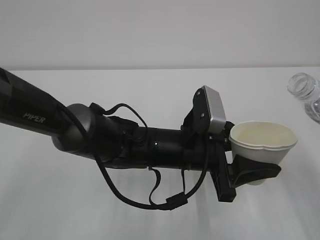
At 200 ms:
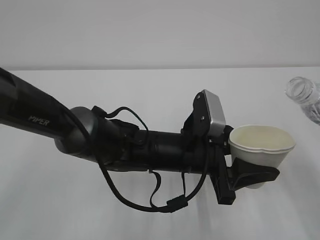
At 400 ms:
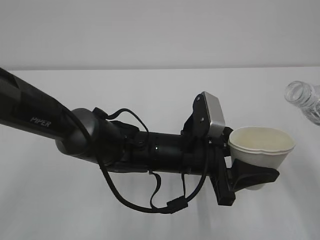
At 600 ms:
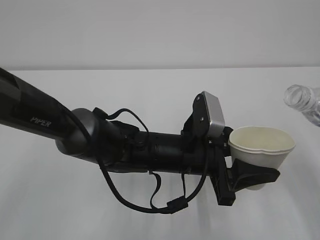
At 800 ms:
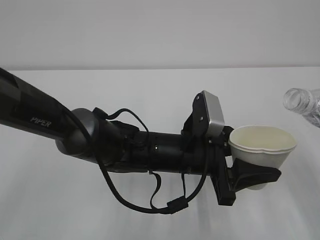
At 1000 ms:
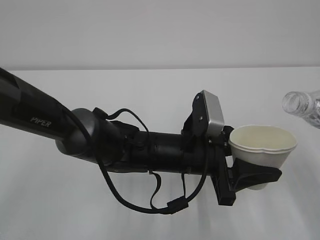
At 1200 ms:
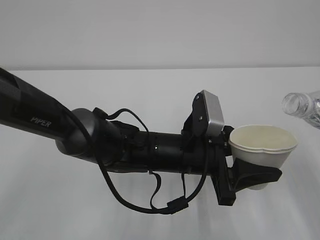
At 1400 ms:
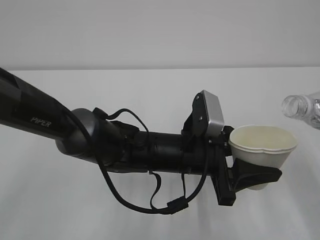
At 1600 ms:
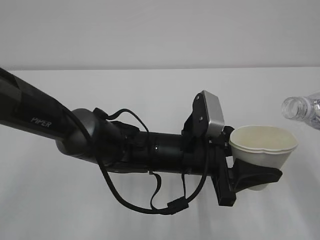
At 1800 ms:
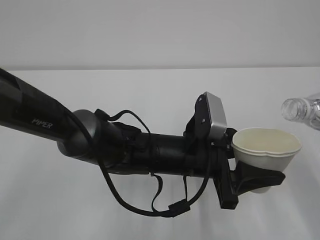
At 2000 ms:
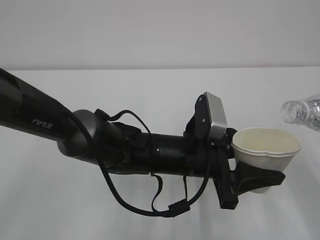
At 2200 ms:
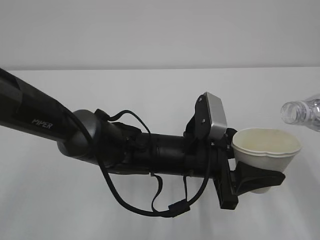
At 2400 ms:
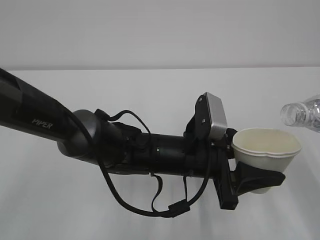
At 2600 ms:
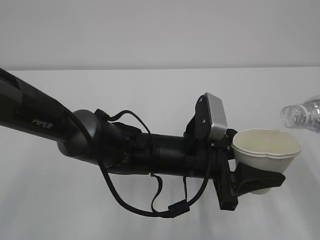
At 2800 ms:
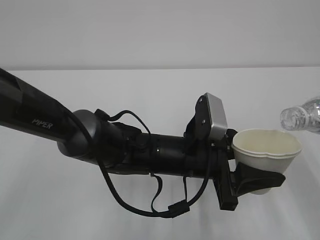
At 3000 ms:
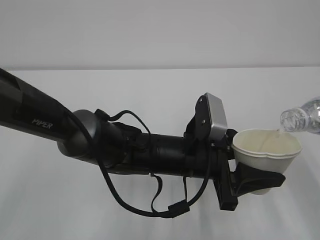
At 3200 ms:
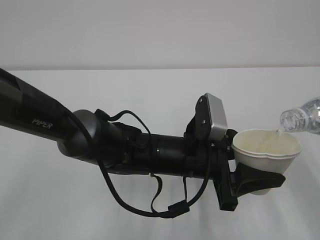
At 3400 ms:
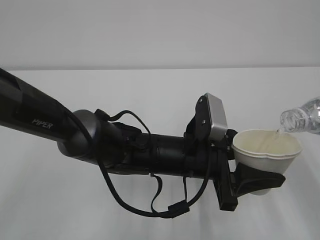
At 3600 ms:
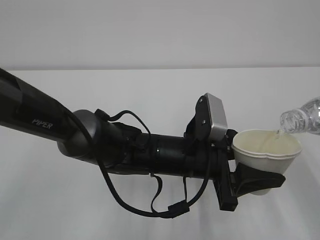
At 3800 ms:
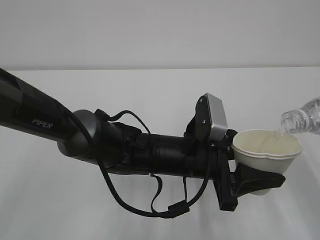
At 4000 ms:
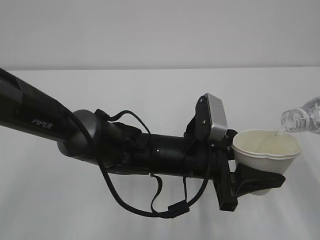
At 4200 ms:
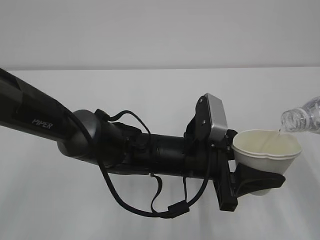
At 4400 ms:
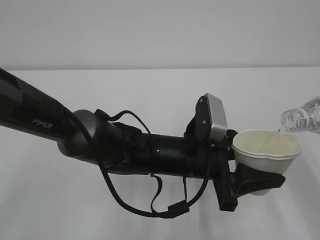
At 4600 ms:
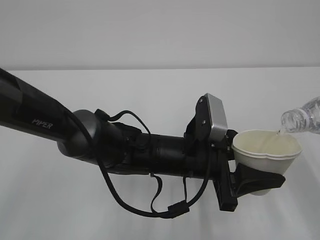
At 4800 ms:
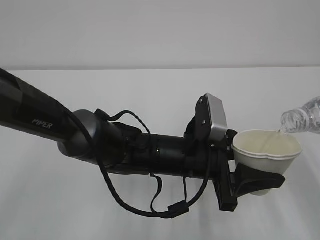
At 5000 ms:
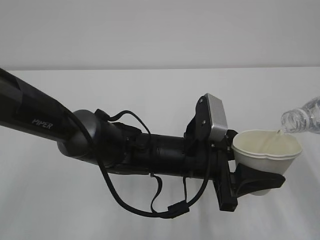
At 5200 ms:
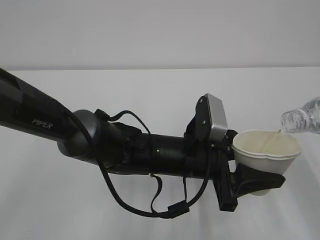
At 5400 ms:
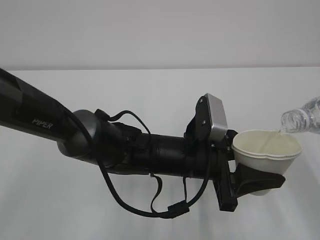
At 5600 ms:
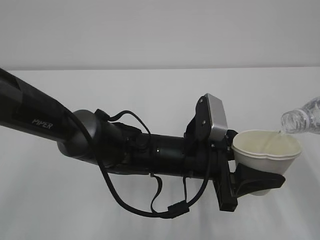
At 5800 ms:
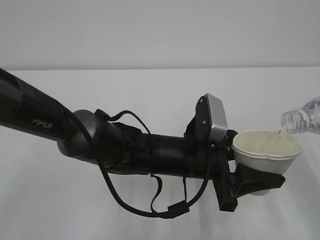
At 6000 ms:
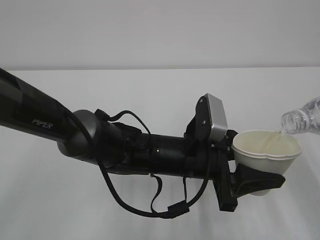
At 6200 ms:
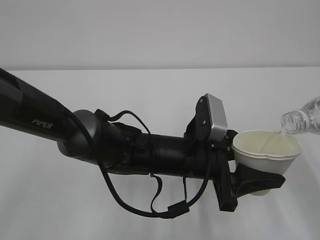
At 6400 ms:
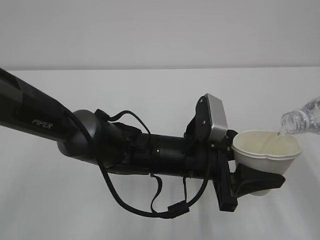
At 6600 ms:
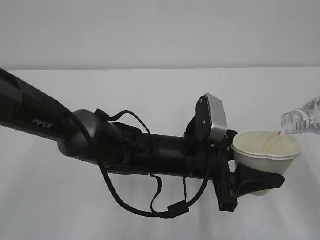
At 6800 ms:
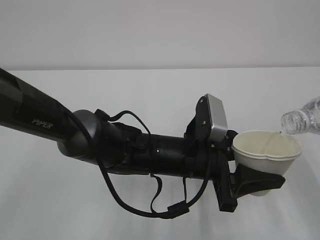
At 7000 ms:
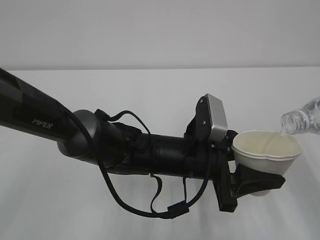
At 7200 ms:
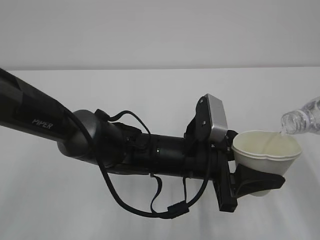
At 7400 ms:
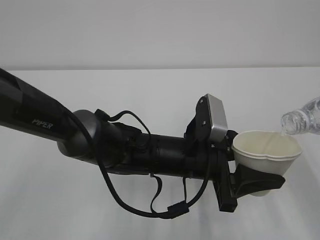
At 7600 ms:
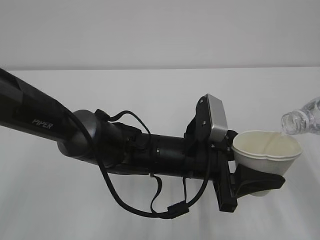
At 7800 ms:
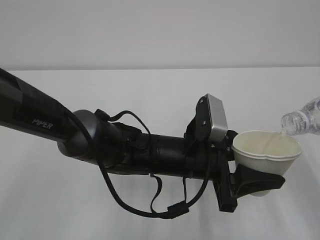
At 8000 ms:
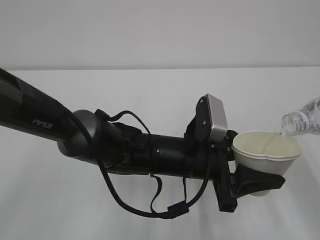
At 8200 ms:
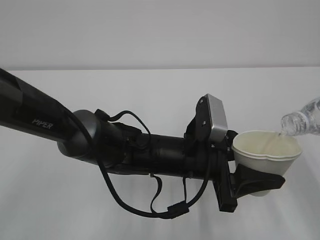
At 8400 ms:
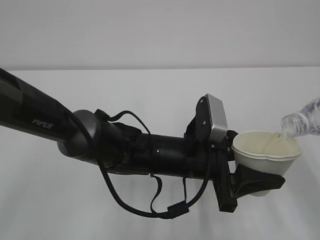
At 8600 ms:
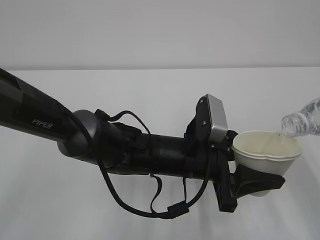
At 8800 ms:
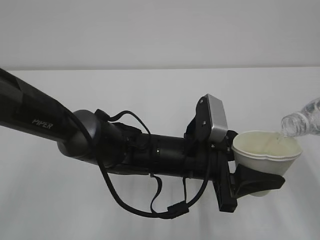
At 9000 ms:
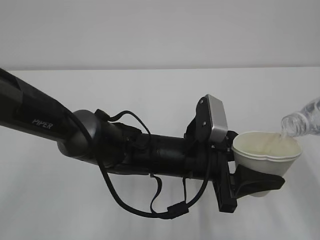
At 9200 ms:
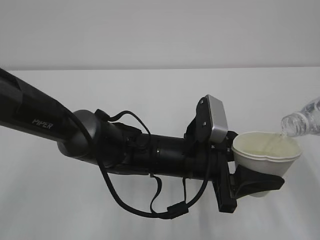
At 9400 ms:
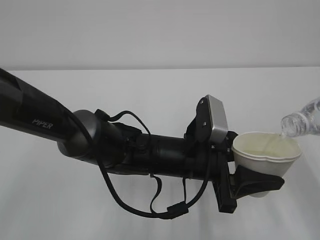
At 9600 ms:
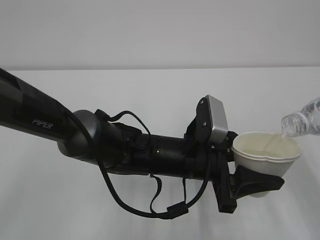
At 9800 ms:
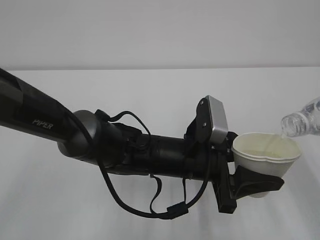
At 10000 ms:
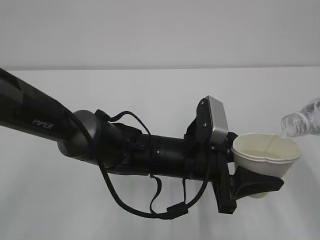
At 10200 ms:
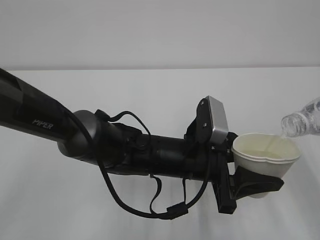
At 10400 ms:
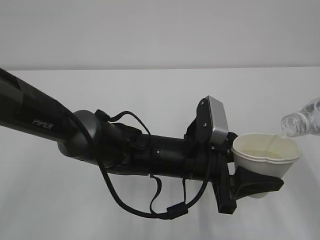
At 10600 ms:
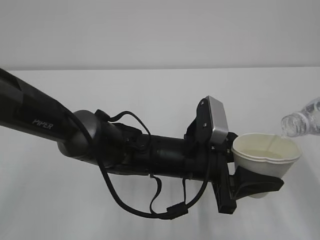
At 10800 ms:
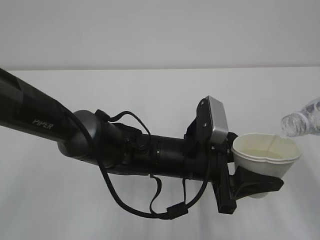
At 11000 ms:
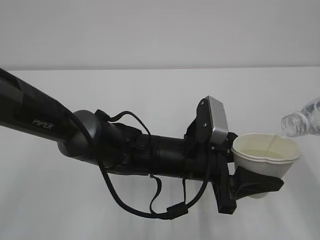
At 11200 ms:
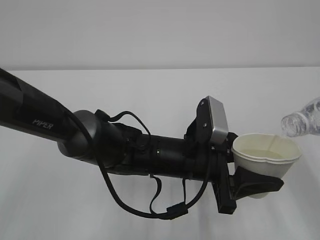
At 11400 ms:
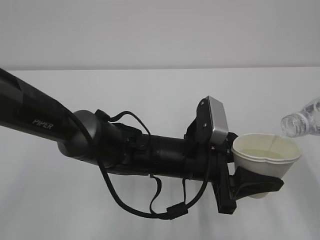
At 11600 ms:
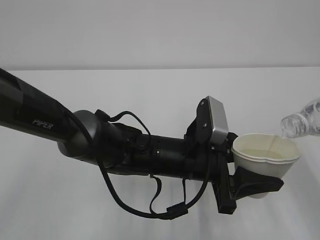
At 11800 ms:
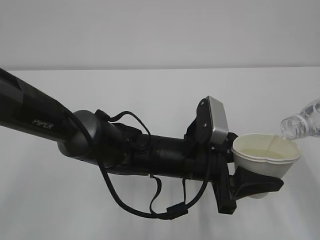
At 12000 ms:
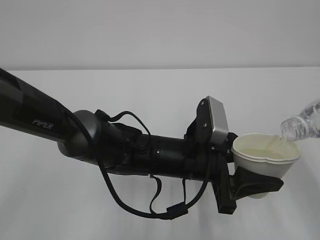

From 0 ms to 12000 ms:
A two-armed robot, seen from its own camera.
From 1600 ms to 3000 ms: The grippers move only a little.
From 3000 ms to 7600 ms: Both grippers stay about where they are.
From 7600 ms to 12000 ms: The two grippers keep their place.

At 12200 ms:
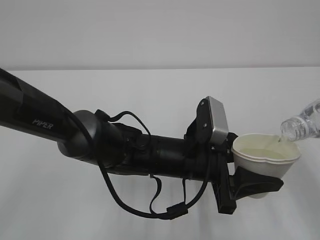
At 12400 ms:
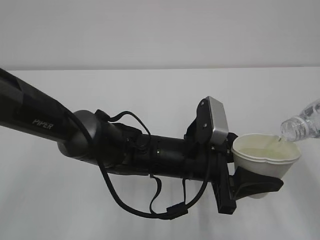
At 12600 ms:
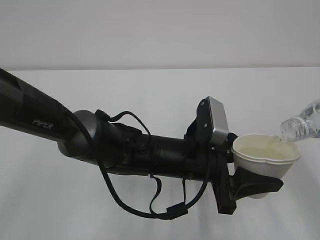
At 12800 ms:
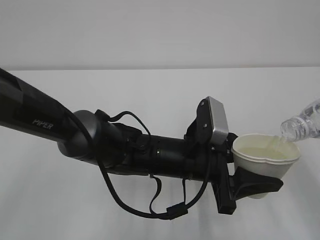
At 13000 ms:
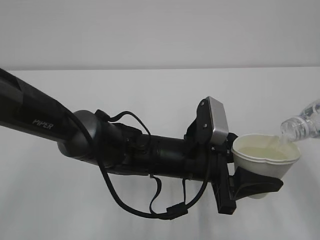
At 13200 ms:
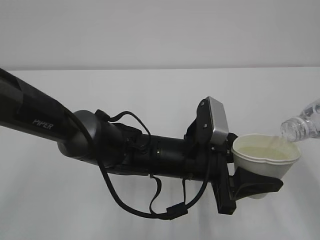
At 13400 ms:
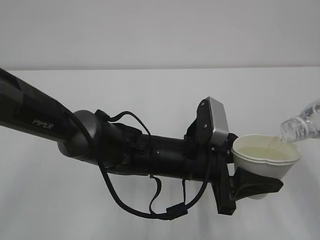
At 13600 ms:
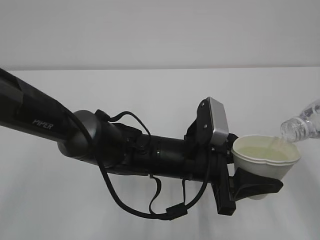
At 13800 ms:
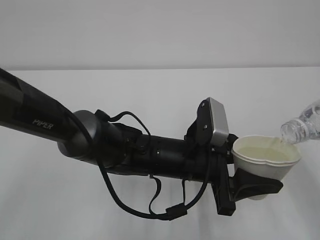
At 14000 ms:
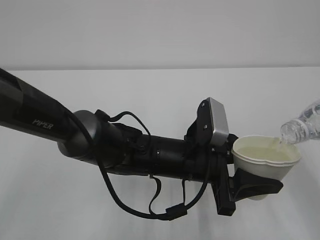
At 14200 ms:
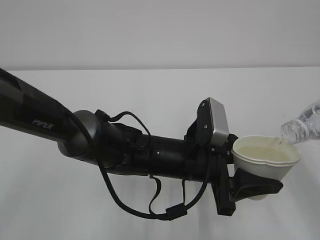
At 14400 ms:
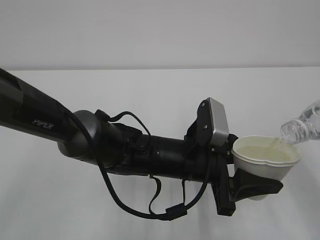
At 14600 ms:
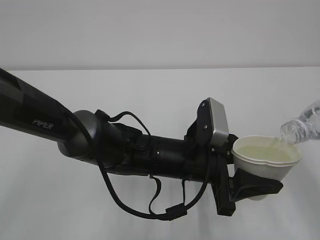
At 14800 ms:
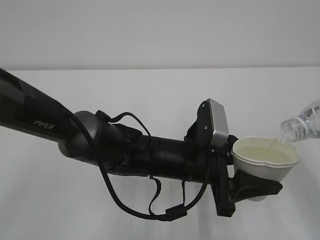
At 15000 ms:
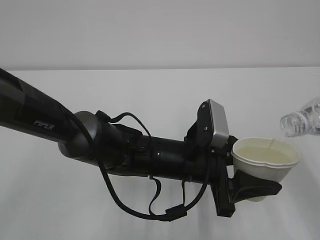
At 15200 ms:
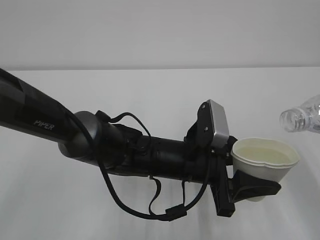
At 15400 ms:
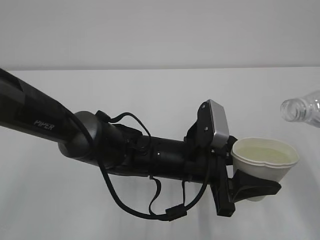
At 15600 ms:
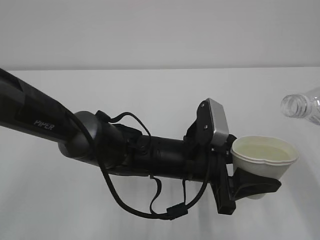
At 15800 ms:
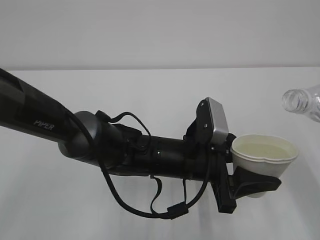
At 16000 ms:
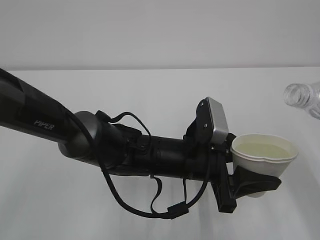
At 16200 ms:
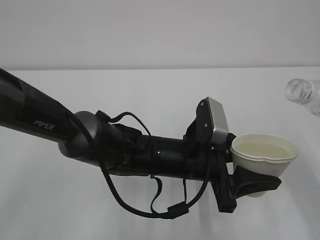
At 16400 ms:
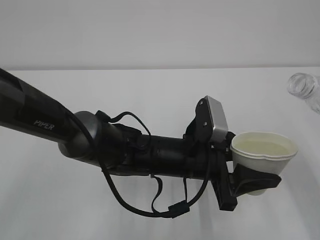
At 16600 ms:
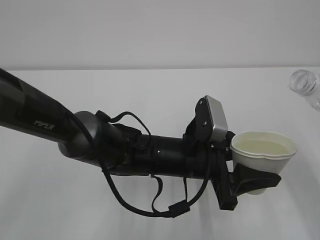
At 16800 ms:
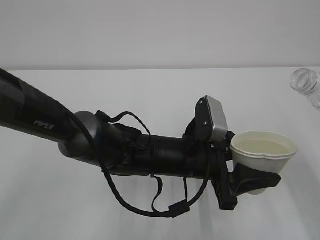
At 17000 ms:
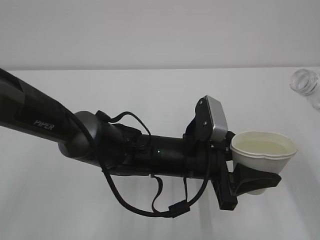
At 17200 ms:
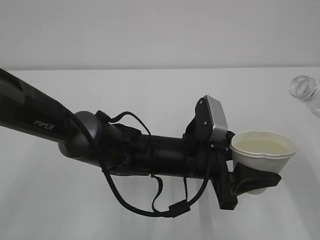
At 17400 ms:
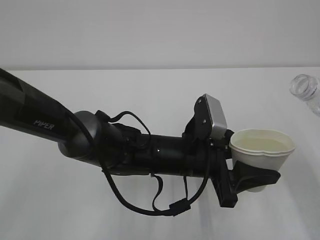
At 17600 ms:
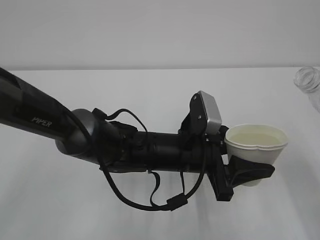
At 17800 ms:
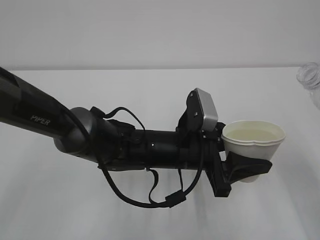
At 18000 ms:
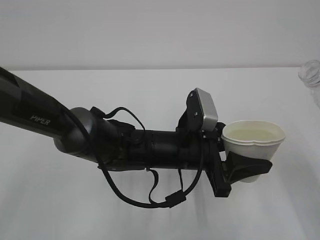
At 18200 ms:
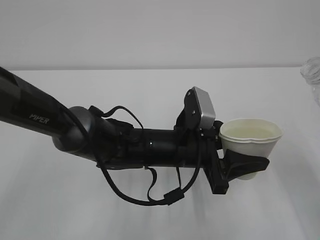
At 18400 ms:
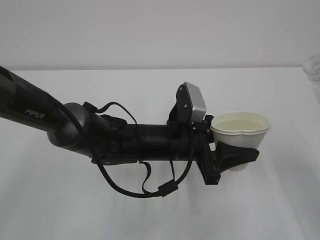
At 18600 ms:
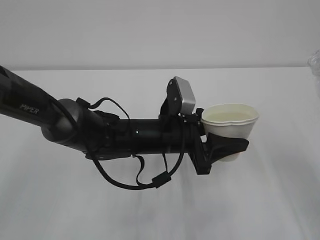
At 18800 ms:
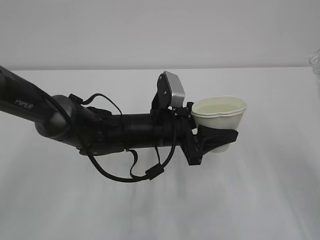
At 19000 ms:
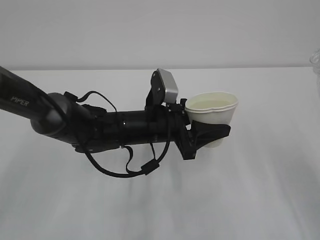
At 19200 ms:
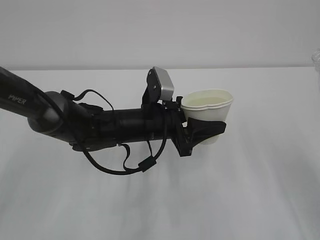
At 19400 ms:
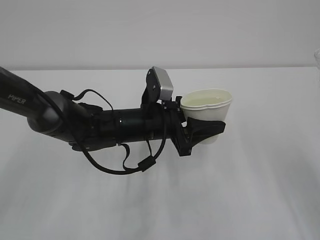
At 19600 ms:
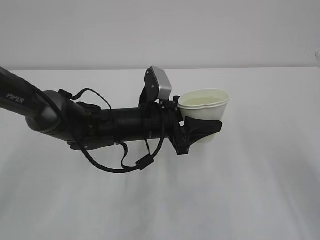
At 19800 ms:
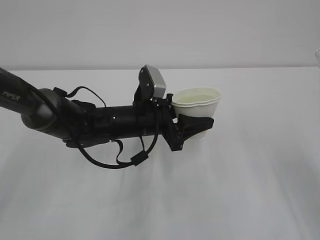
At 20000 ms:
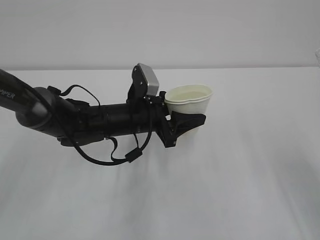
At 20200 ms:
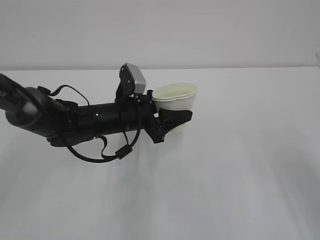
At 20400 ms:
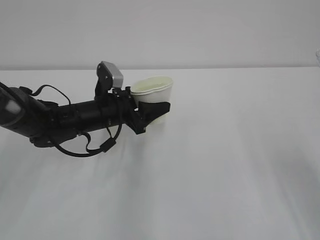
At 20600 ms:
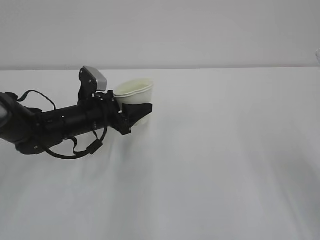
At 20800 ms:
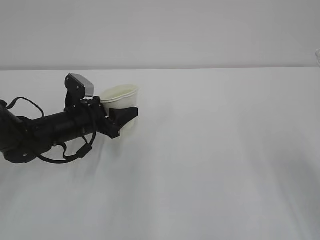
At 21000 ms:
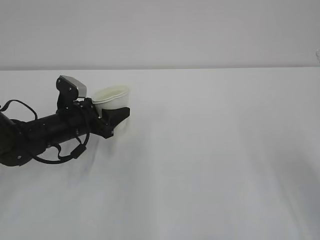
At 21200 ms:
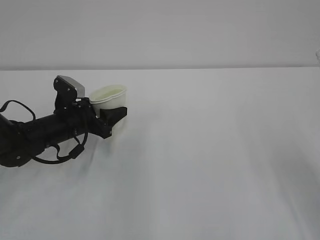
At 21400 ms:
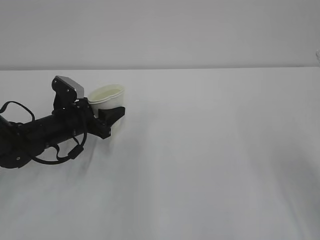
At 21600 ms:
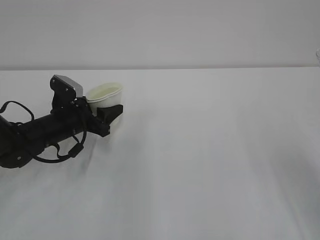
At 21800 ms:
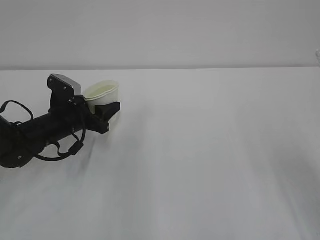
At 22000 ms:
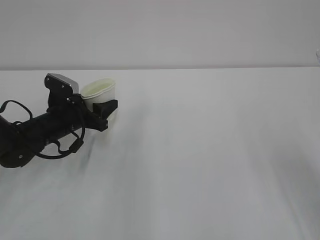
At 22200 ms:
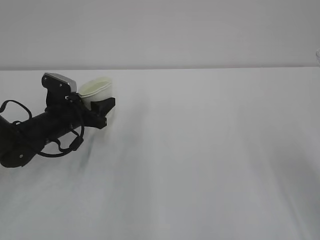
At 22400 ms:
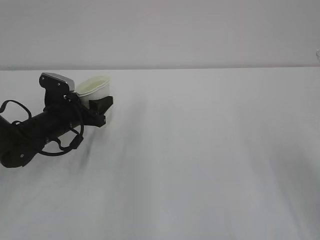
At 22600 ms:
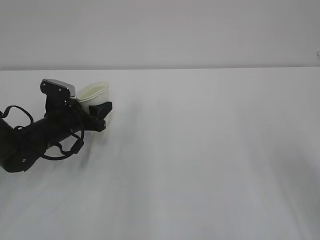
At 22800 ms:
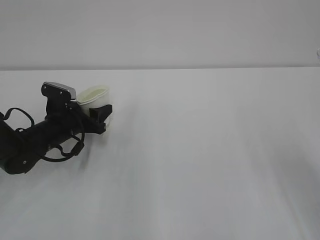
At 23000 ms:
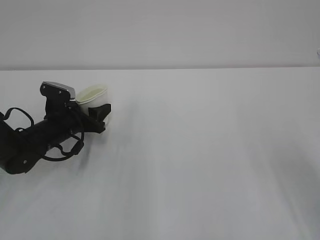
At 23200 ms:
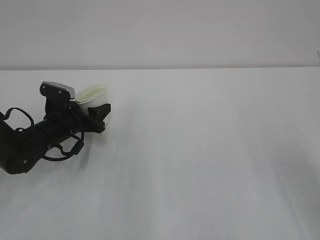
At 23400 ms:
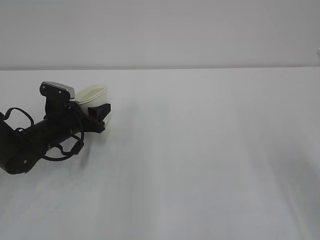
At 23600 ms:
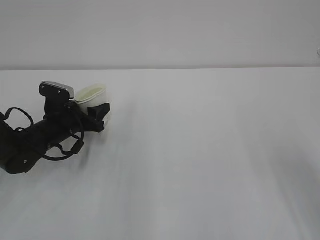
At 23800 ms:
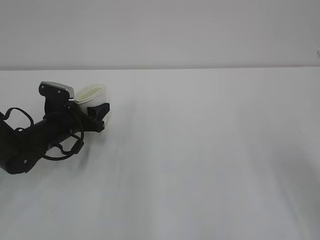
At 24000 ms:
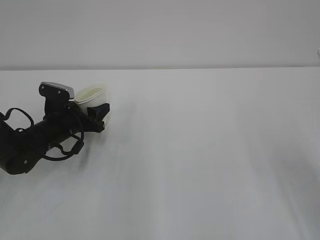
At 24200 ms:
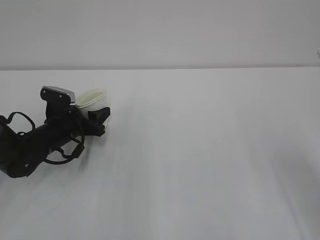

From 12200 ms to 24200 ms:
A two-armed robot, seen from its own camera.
From 12200 ms to 13800 ms: Both grippers stay about where they are.
From 13800 ms to 15200 ms: The grippers make only small movements.
From 16600 ms to 18200 ms: The grippers stay close to where they were, moving slightly.
From 18200 ms to 19800 ms: The left gripper heads forward and to the left, covering about 10 cm.
From 19800 ms to 21200 ms: The left gripper heads to the left, covering some 15 cm.
From 21200 ms to 24200 ms: The grippers move only a little.
